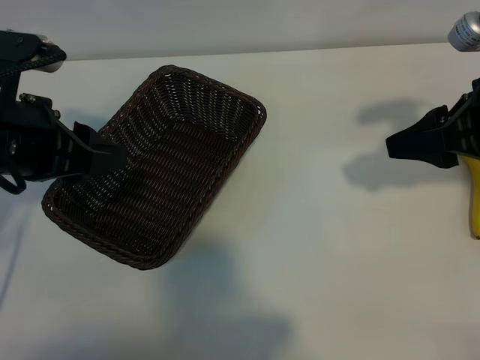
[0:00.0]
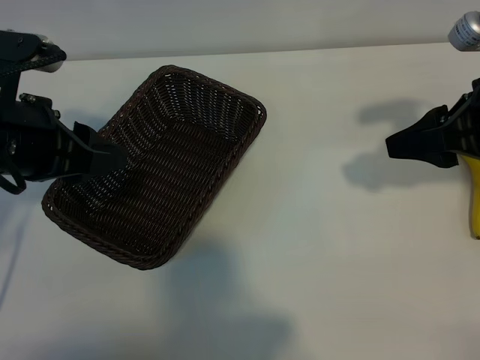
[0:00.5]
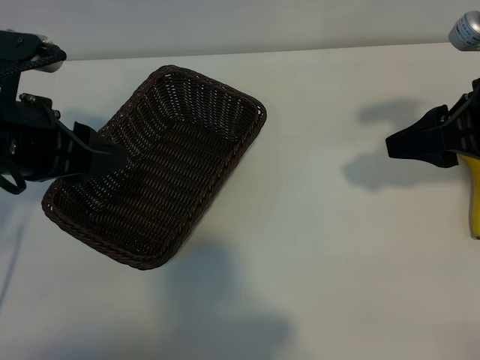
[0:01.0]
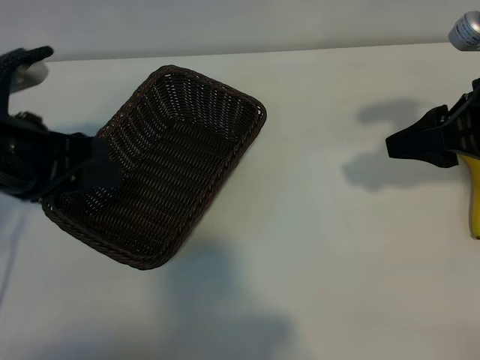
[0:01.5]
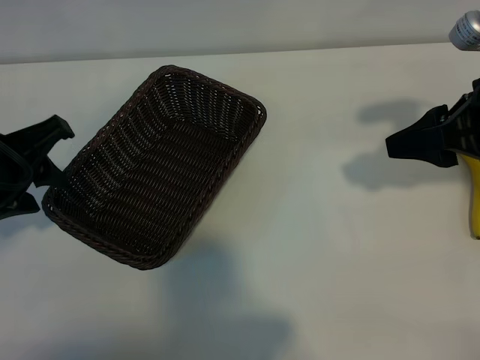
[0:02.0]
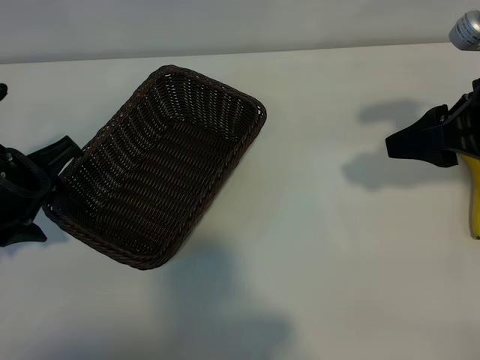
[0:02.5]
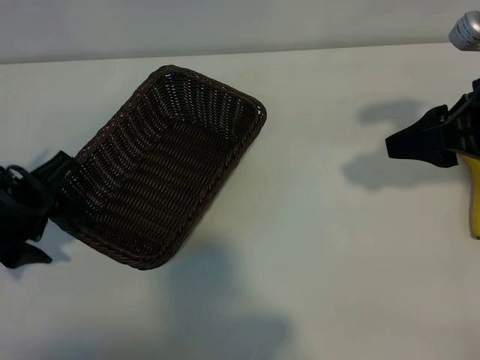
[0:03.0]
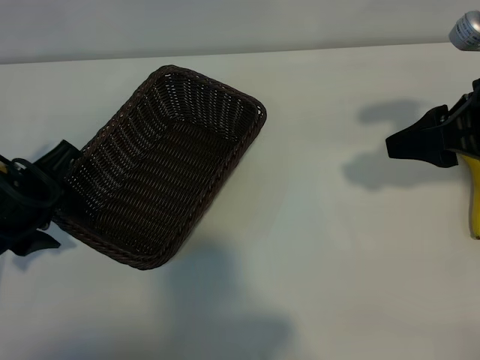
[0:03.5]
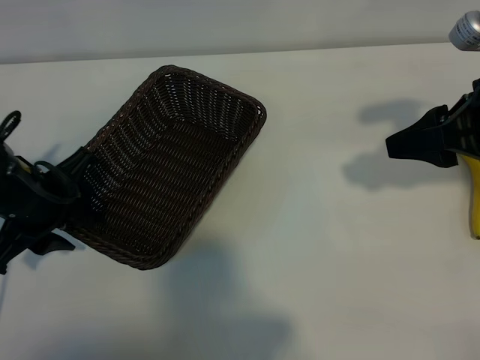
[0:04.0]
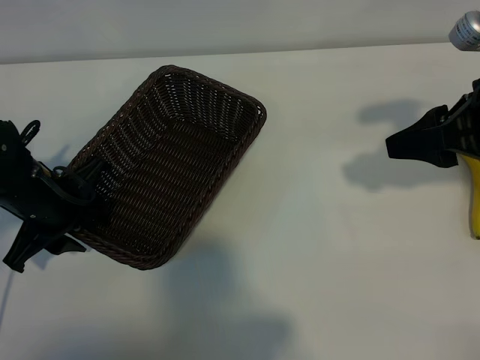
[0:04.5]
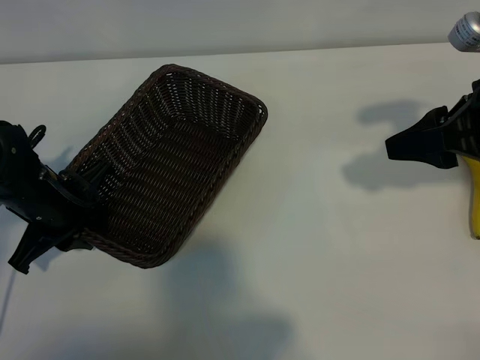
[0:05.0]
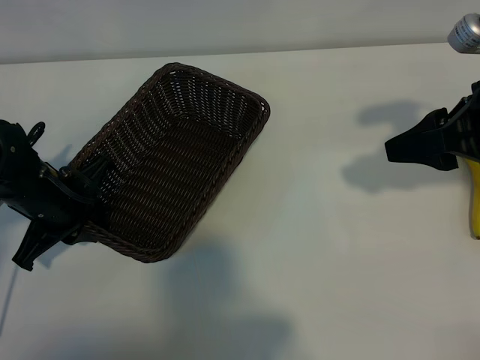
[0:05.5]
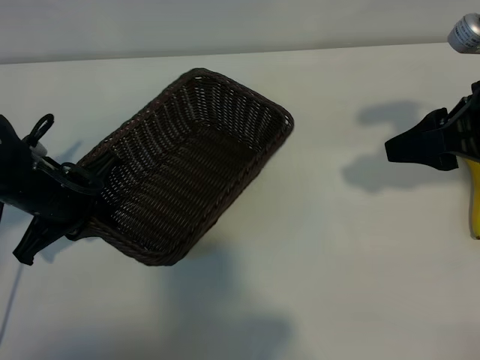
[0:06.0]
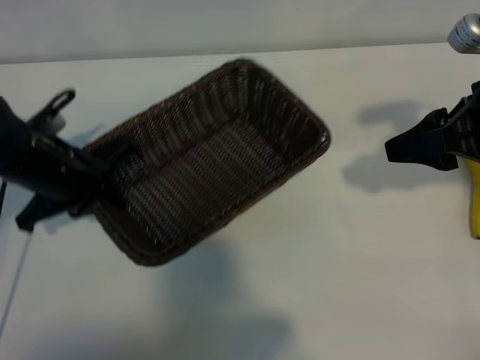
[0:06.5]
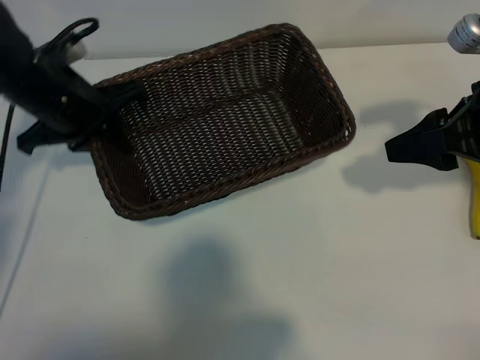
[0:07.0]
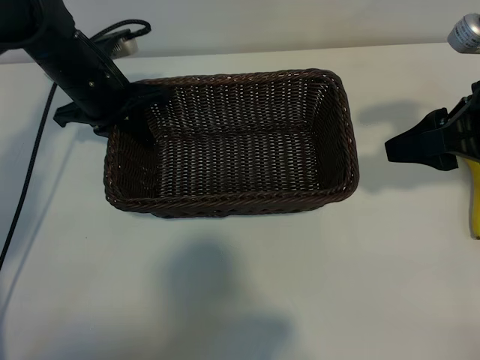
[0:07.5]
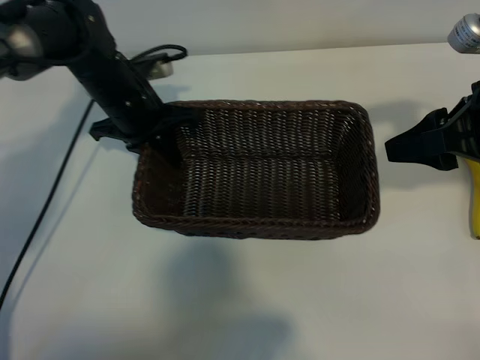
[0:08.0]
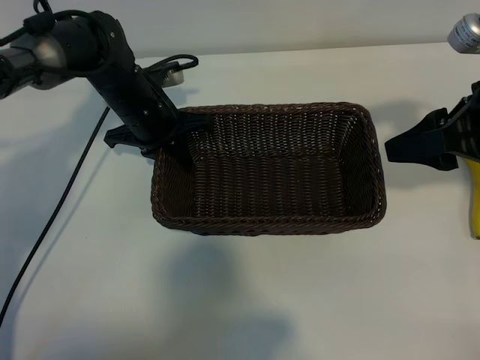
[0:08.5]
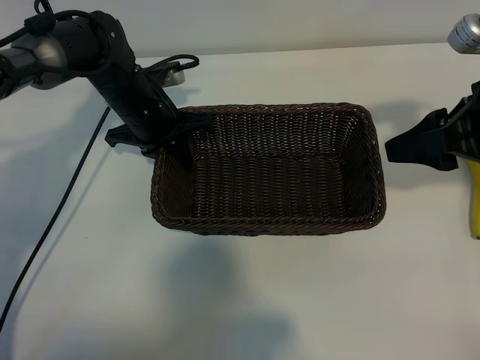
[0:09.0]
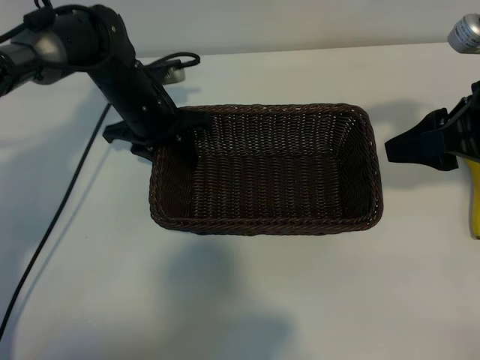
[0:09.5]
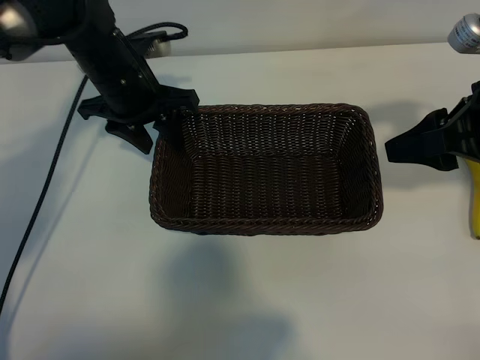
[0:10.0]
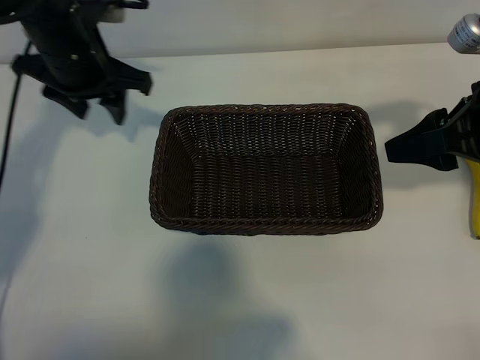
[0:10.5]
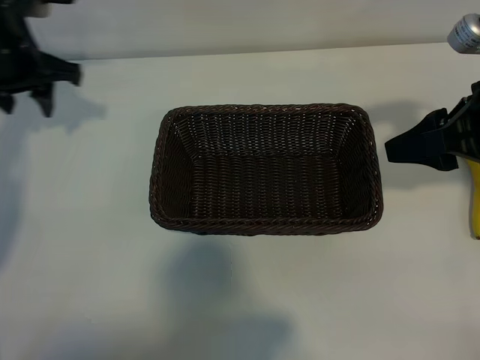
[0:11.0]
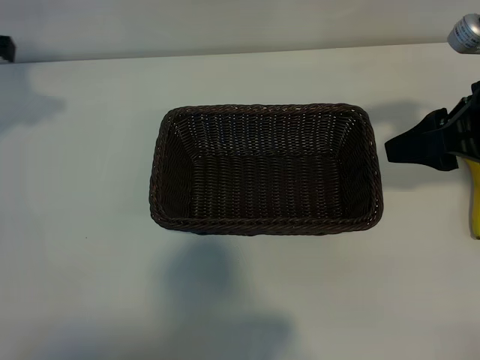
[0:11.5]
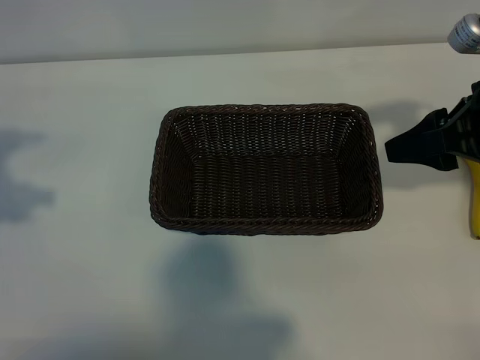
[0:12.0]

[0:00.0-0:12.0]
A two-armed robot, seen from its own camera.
Task of the whole recording: pick up the banana and put it into the basket.
Step, 0:01.5 to 0:05.0: Grasp the basket with the left gripper.
Step, 0:06.0 to 0:09.5: Place the basket in the center of the table with the left gripper.

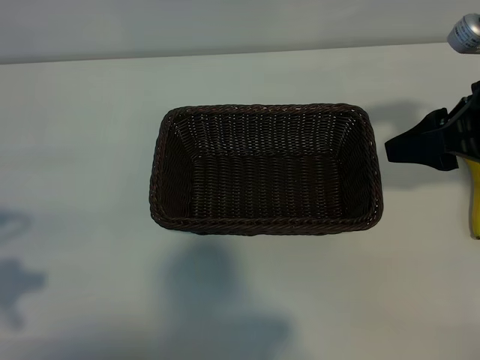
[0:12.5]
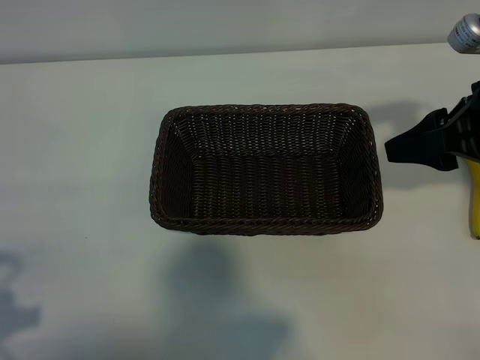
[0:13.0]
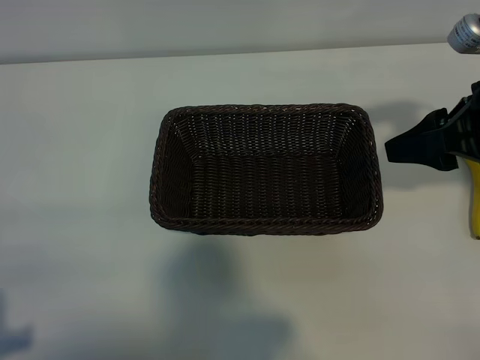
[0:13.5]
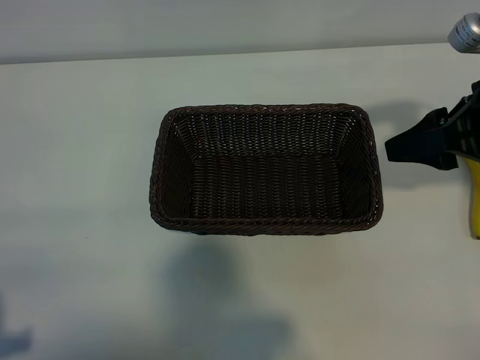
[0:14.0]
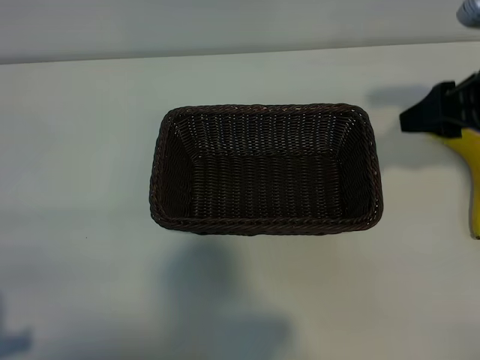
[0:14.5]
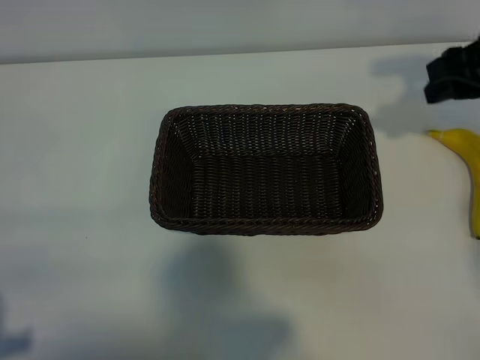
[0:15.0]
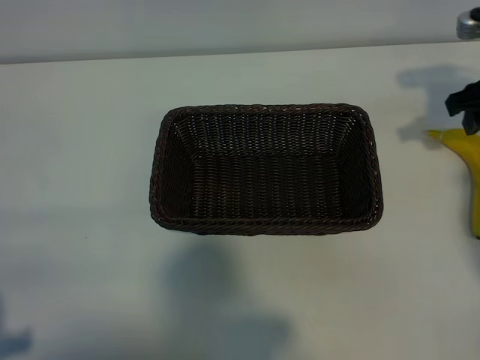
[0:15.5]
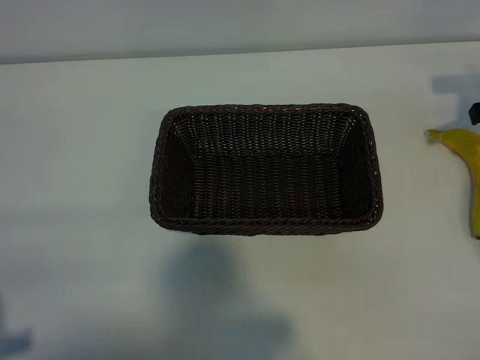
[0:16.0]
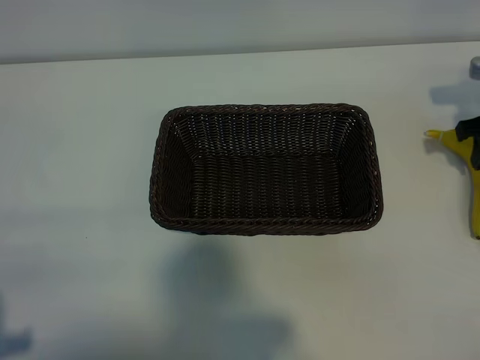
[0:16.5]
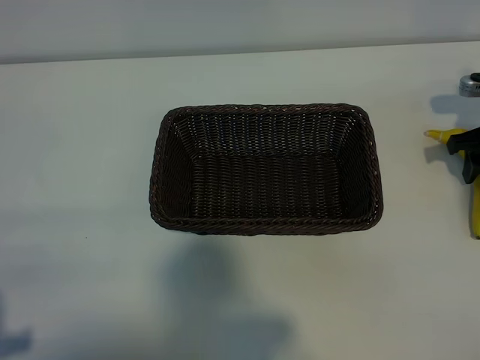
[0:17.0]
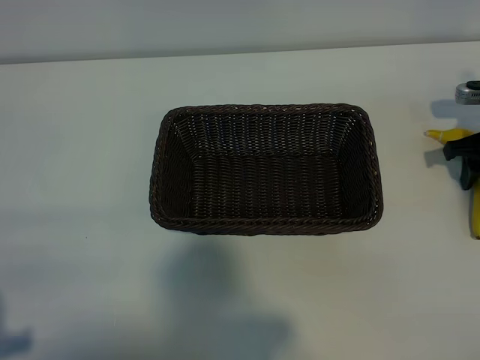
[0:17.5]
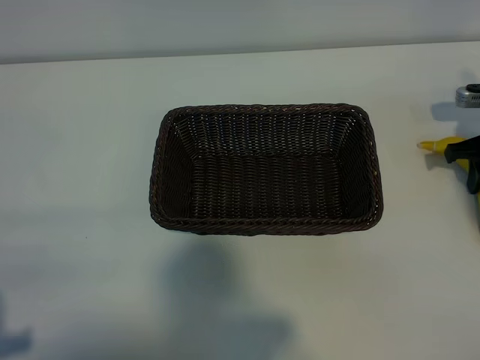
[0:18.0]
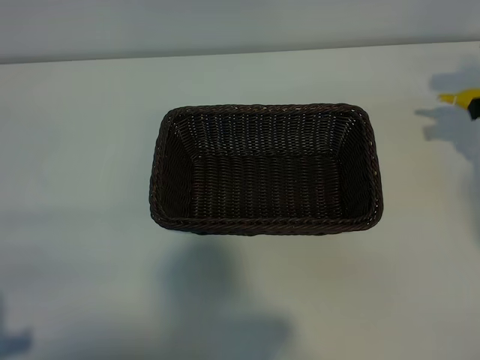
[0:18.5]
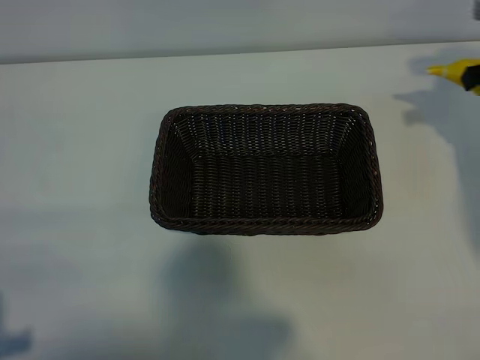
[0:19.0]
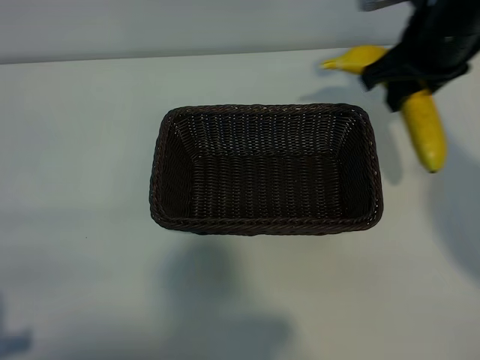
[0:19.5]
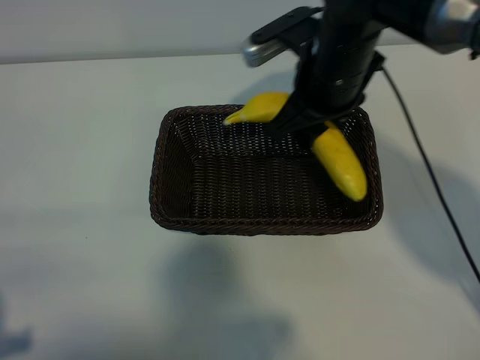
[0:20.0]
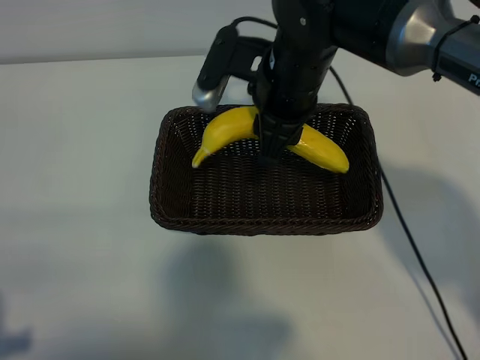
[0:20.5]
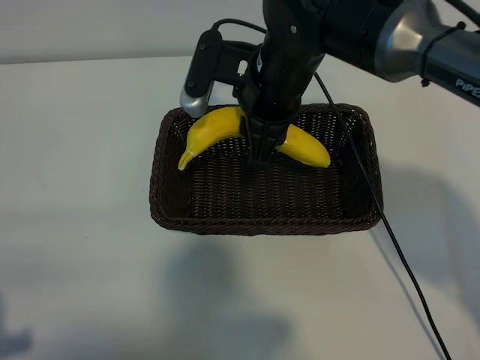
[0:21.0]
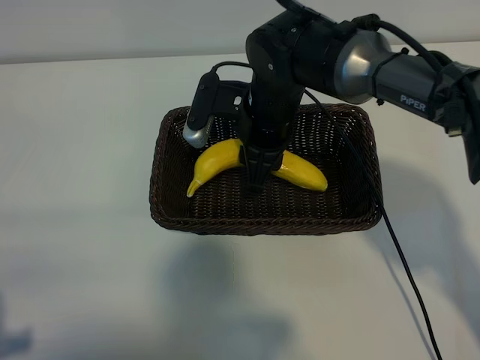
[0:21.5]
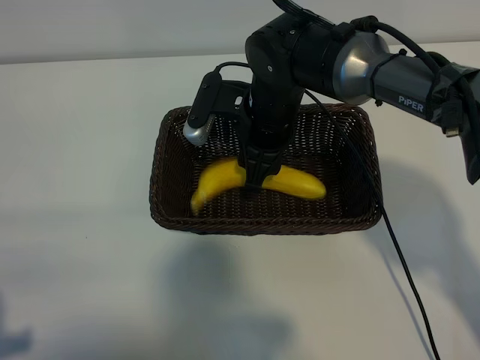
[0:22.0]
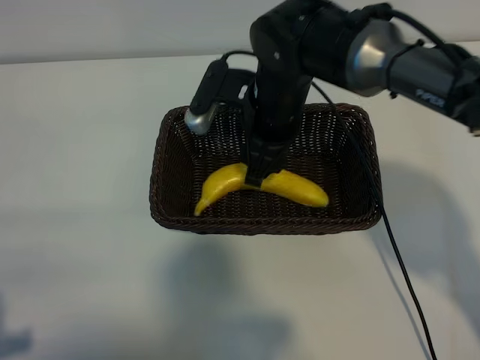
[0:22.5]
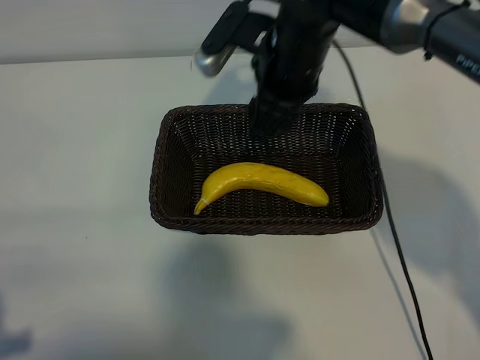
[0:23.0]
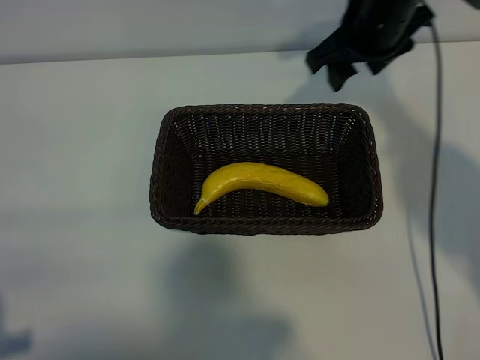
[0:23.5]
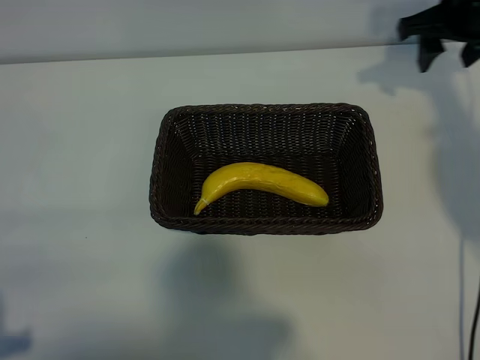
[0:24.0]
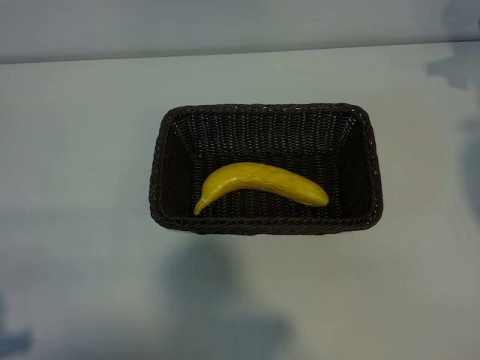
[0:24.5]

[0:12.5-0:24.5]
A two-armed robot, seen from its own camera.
Task of the whole recording: pick up the banana and put it into the basket.
Step, 0:12.5 to 0:17.5: Grasp the banana with right gripper.
Step, 0:18.0 to 0:22.5: Place the banana in the basket with right gripper.
